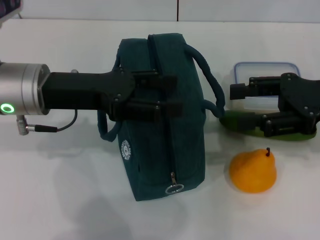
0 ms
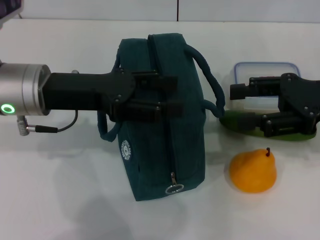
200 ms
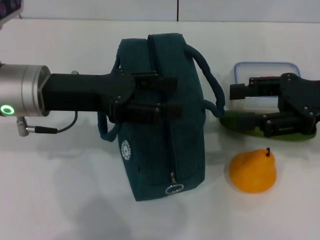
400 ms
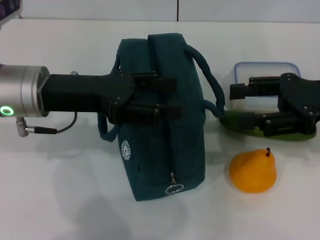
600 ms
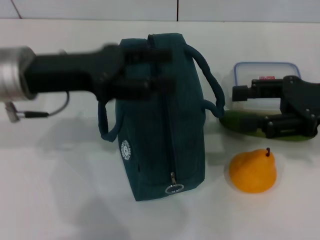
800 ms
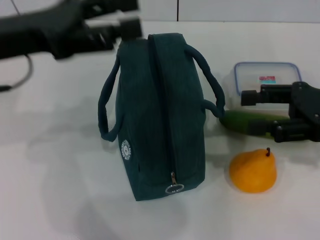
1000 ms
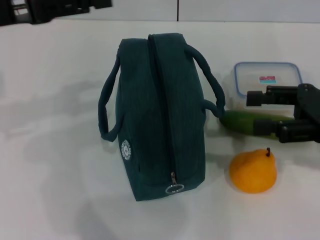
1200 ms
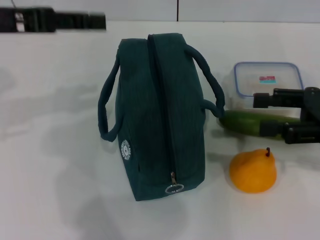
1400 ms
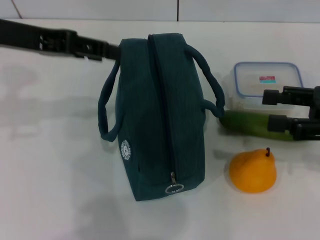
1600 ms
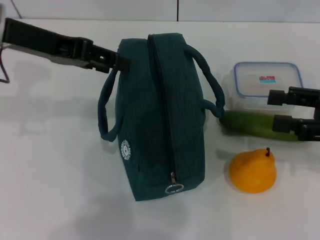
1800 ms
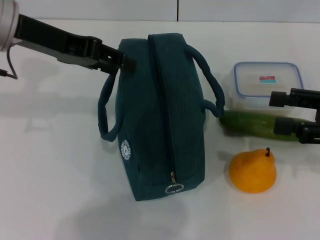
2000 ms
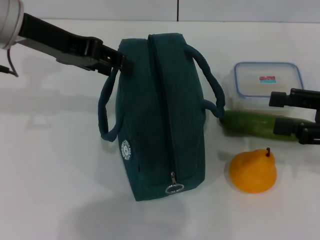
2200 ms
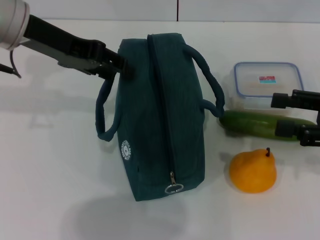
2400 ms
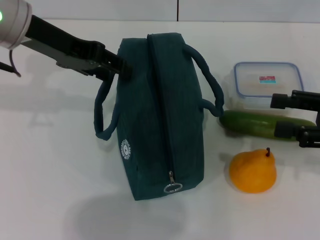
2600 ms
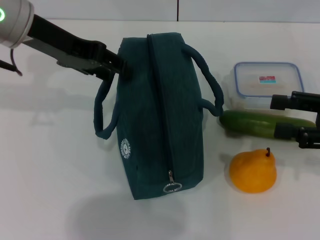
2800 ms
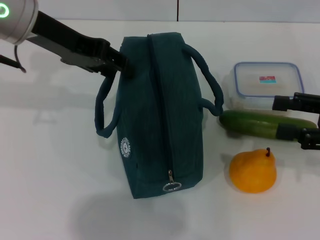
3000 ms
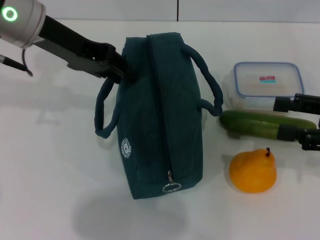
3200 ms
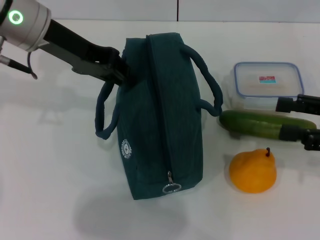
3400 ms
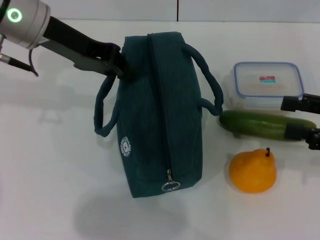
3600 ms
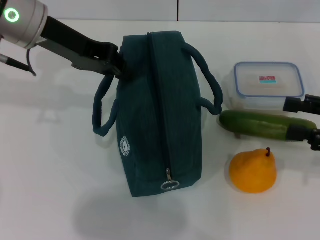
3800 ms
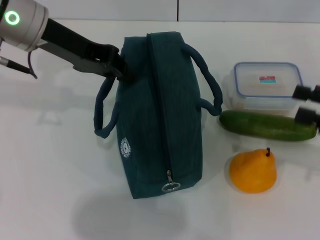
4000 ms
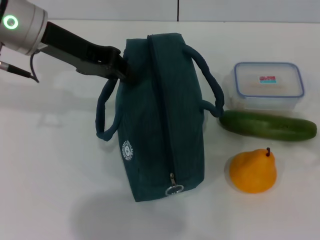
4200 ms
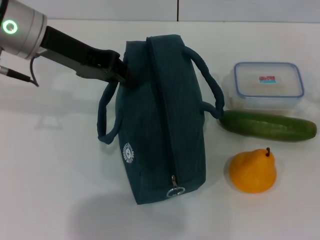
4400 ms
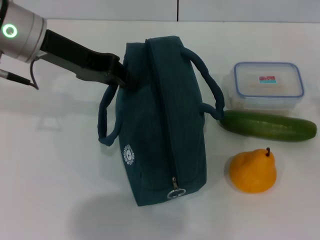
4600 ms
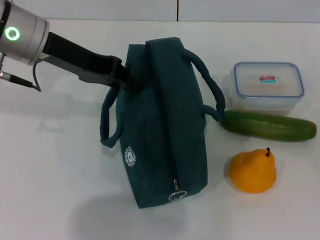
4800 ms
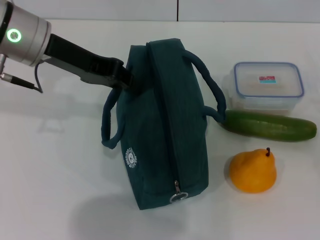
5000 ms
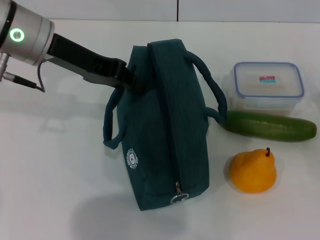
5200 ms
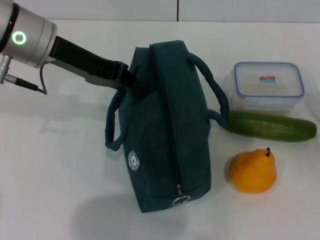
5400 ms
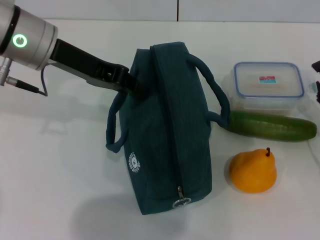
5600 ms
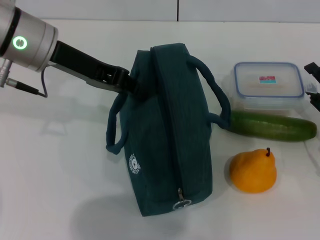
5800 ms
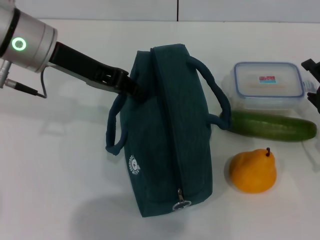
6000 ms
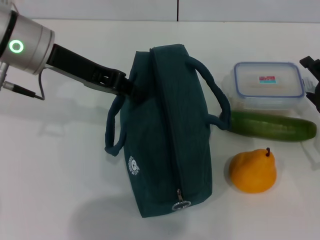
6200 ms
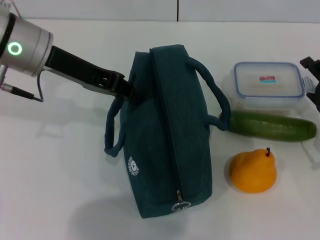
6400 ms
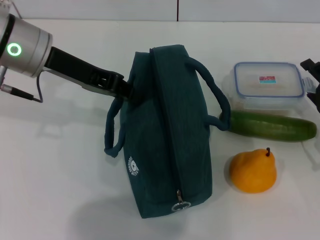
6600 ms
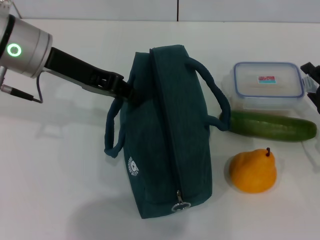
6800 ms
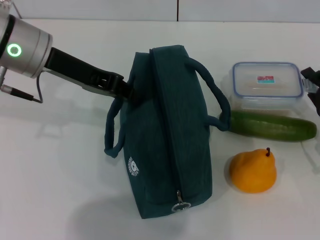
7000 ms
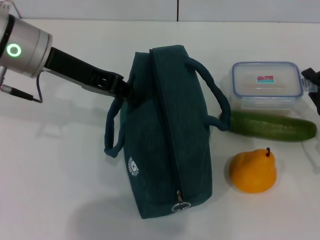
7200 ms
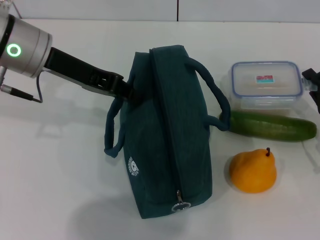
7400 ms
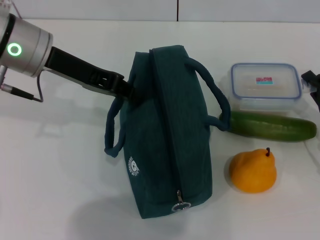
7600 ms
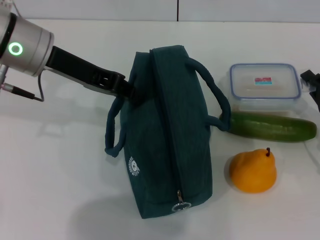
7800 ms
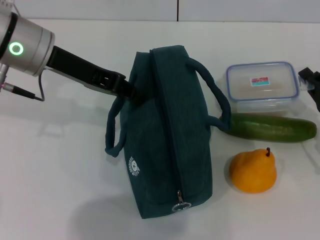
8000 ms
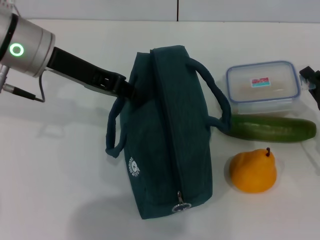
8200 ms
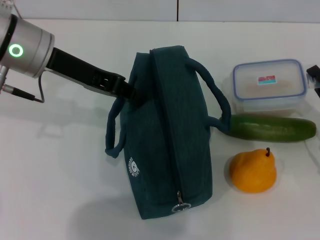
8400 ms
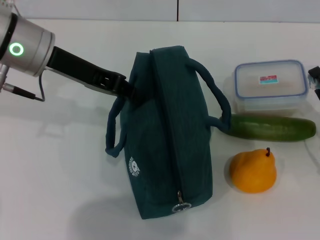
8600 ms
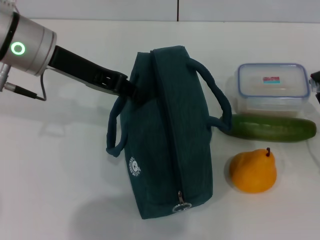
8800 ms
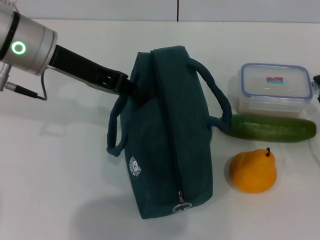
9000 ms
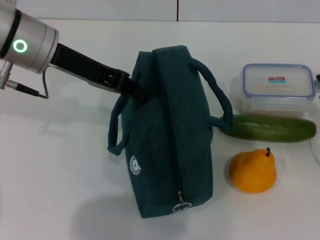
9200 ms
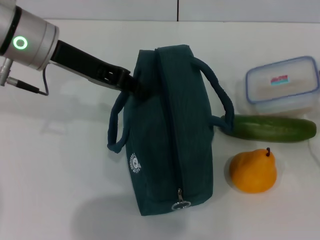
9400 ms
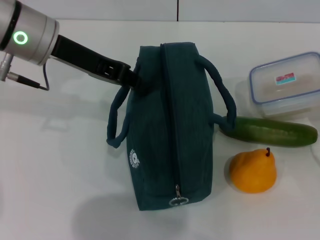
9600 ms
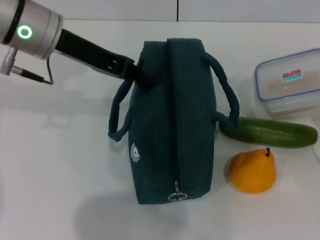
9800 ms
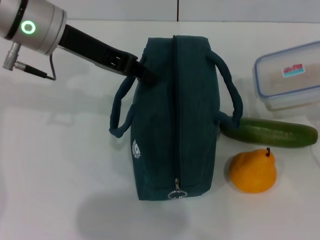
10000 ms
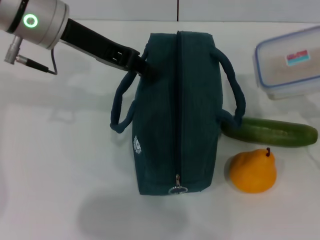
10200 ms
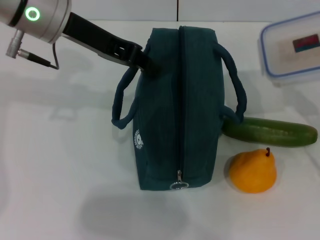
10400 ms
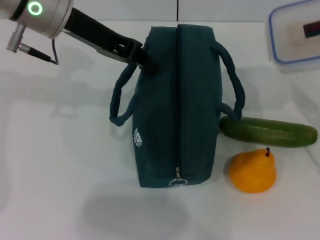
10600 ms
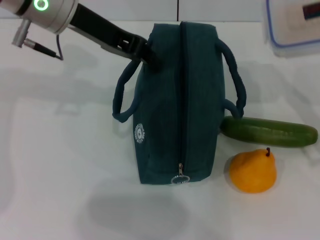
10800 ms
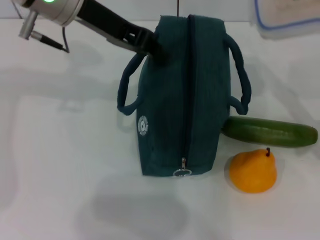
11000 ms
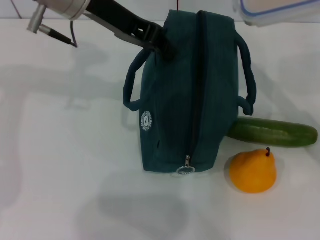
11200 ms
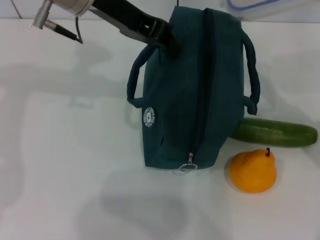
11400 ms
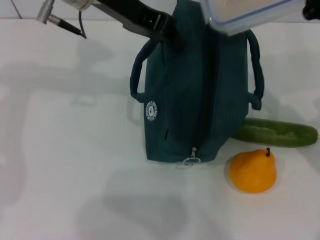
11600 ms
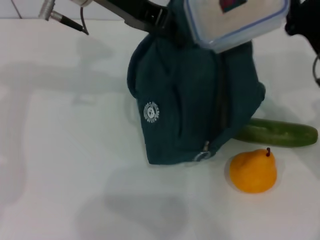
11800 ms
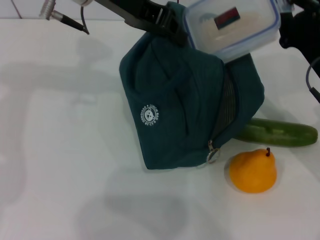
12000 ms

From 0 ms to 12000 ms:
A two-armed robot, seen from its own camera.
Step, from 0 ms to 3800 ms: Hold the lunch bag with your left hand.
Step, from 4000 ms to 8400 ms: Pick up the lunch box with your right hand.
From 0 ms to 1600 ms: The right gripper moves about 5 cm. Meanwhile the left gripper shifts roughly 10 cm upward.
From 1600 ms to 3000 ms: The left gripper moves roughly 5 cm.
From 3000 ms to 4400 ms: The left gripper closes its fingers, while the right gripper is displaced to the right and downward by approximately 10 cm.
From 4400 ms to 6000 ms: The right gripper moves to the left and downward, roughly 10 cm.
From 6000 ms to 7600 ms: The right gripper closes up.
From 7600 ms to 9000 ms: The grippers move only a little.
From 9000 ms to 10400 ms: The right gripper goes approximately 5 cm upward.
From 10400 ms to 12000 ms: The left gripper moves some 5 cm; the right gripper is displaced to the left and forward by roughly 10 cm.

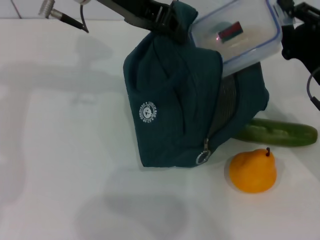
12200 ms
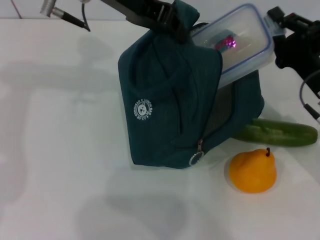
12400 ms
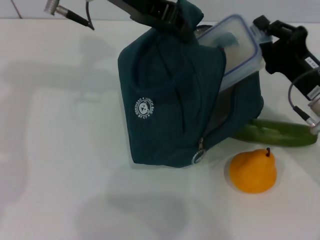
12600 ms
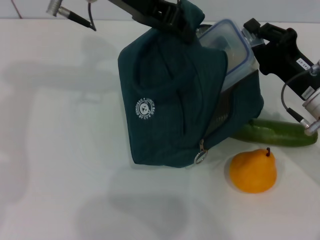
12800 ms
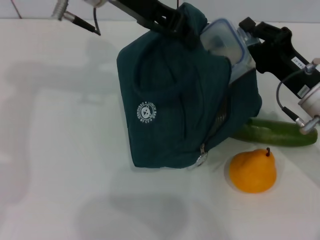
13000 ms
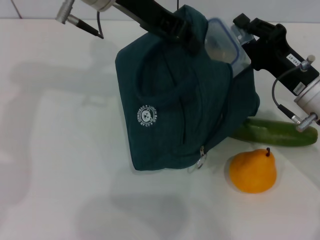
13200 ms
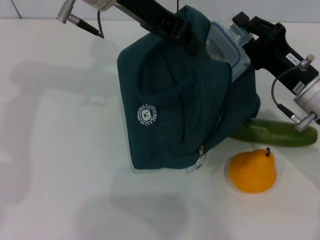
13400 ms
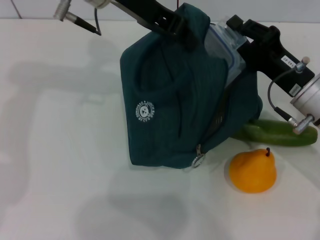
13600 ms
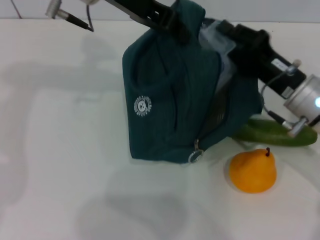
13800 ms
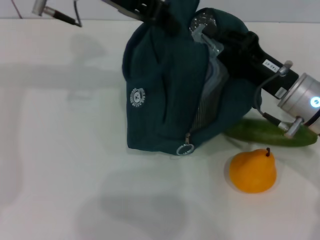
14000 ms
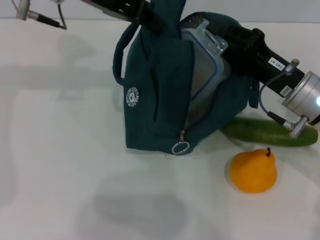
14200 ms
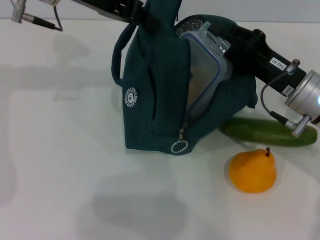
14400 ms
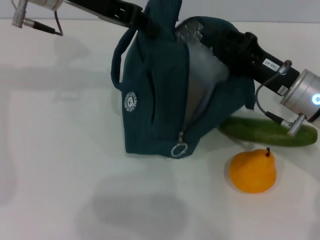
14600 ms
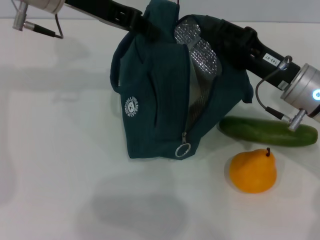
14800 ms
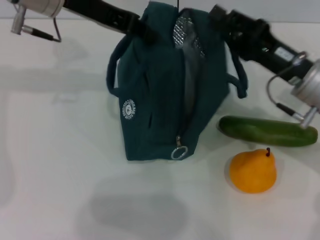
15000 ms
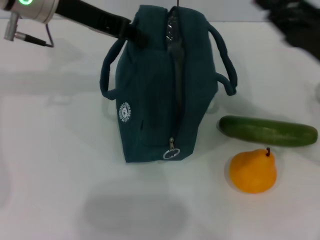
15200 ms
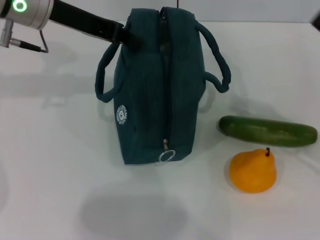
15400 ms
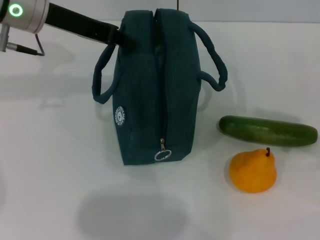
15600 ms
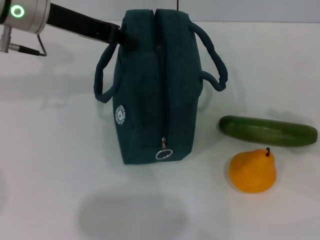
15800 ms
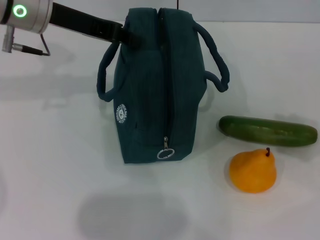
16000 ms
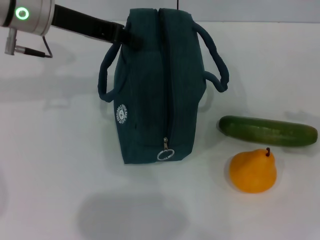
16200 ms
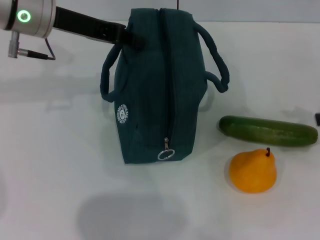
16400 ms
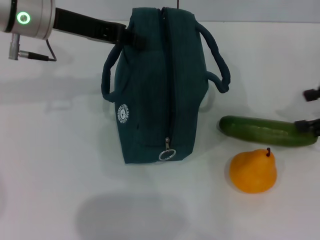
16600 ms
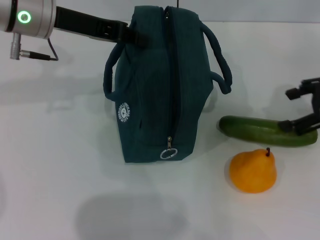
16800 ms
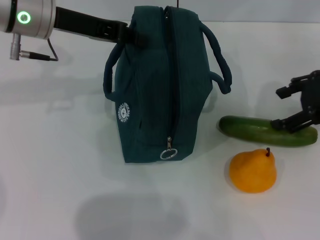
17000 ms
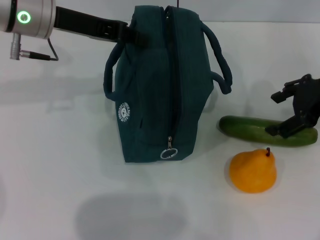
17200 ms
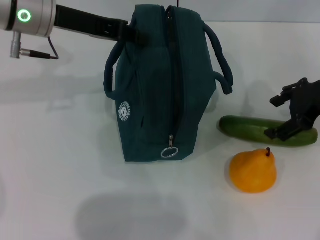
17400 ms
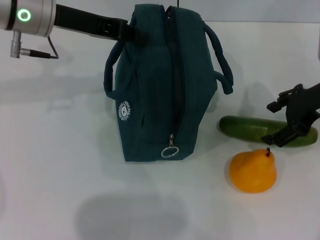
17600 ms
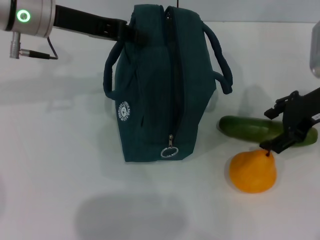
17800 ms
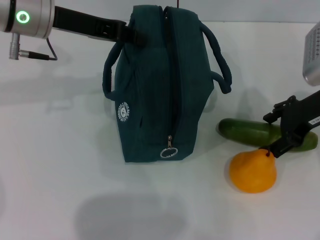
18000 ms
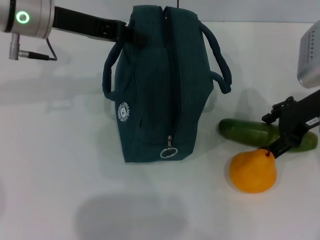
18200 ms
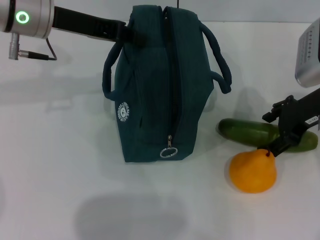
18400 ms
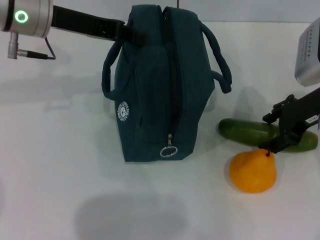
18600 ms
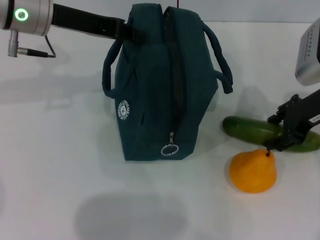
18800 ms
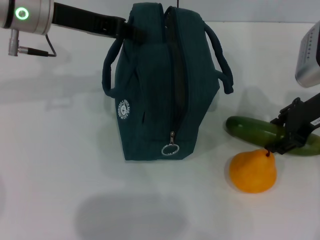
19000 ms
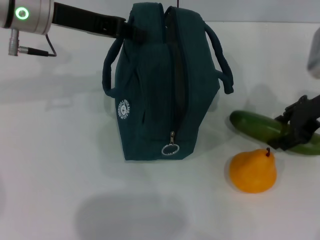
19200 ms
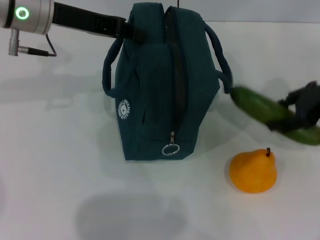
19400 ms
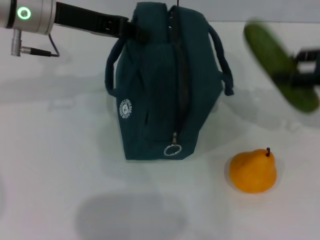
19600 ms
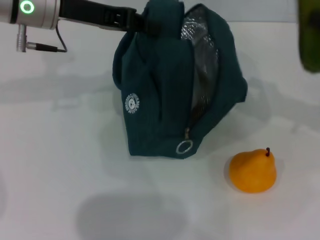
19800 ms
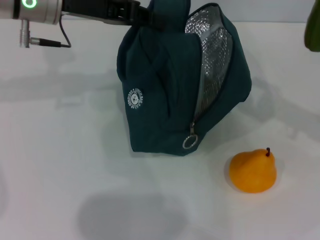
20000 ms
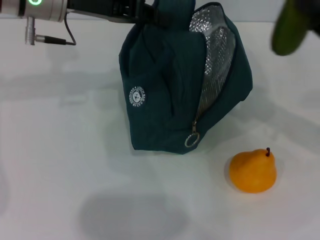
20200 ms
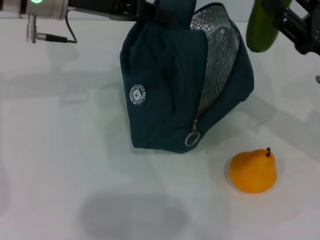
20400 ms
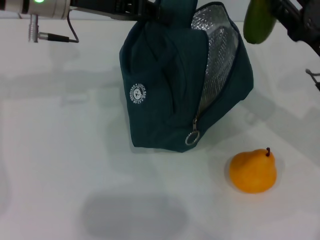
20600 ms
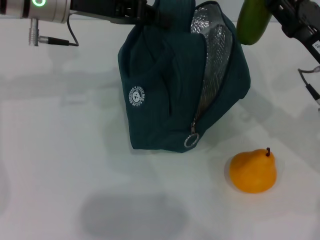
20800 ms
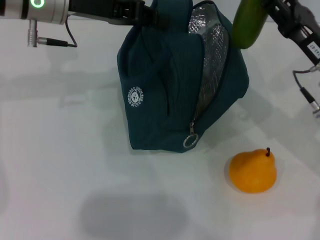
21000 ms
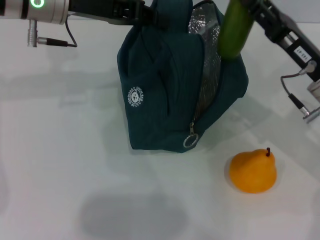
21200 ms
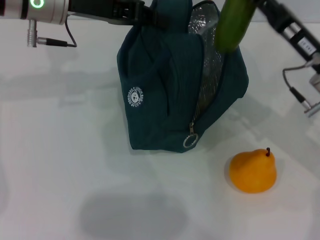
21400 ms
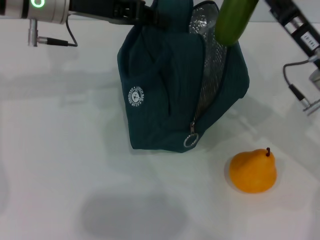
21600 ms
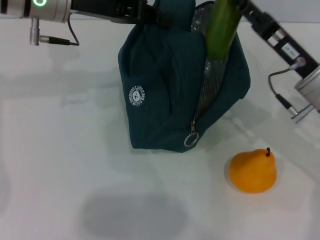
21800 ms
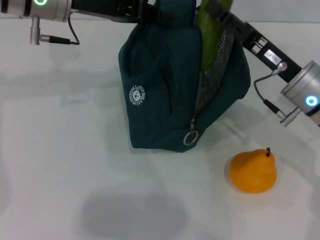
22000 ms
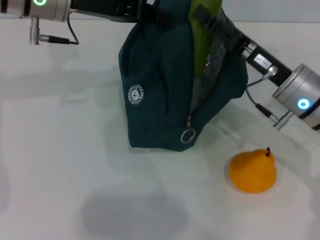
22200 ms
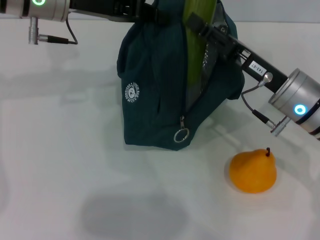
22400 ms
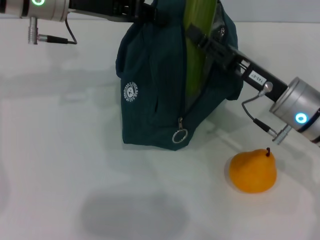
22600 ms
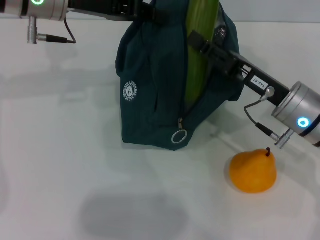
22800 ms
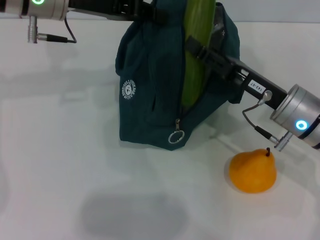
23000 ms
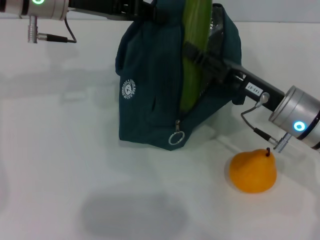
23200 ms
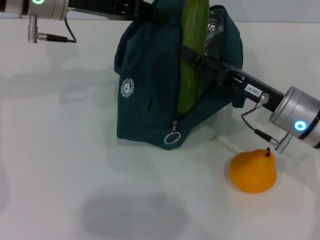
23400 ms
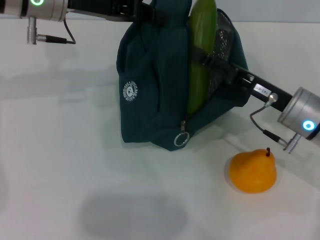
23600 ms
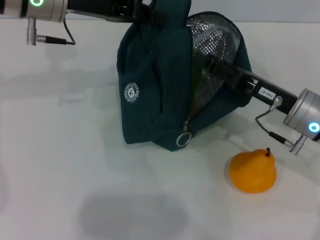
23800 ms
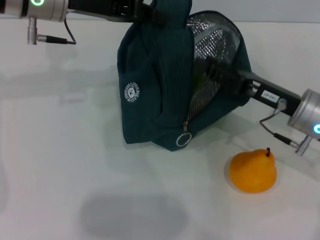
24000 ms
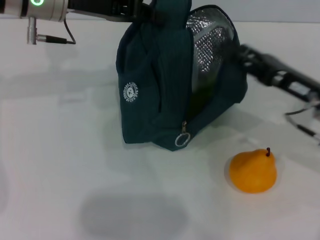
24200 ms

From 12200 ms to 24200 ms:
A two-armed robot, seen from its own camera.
Step, from 12200 ms to 14600 ms: Place the lunch box into the lunch bag with your right hand.
Step, from 14800 ms to 19000 ms: Pick up the cucumber with your right hand.
Step, from 19200 ms to 23800 ms: Put the cucumber into the lunch bag with your right hand.
From 12200 ms to 13800 ms: The grippers make only small movements.
From 13800 ms to 15200 ms: The right gripper moves to the right, about 5 cm. The left gripper shifts approximately 5 cm to the left.
From 15200 ms to 16600 ms: The right gripper heads to the right and upward, covering some 10 cm, and opens.
From 16600 ms to 18200 ms: The right gripper shifts roughly 10 cm to the left.
From 18200 ms to 19800 ms: The right gripper heads to the right, covering some 10 cm.
From 19800 ms to 21200 ms: The right gripper travels to the left and downward by roughly 15 cm.
From 21200 ms to 22600 ms: There are only small adjustments of the grippers.
From 22600 ms to 24200 ms: The right gripper goes about 5 cm to the right.
